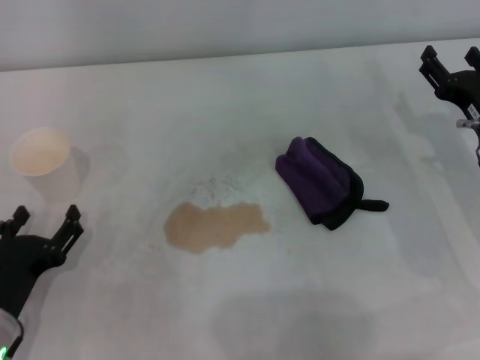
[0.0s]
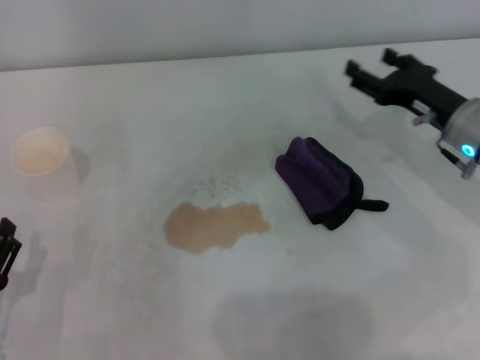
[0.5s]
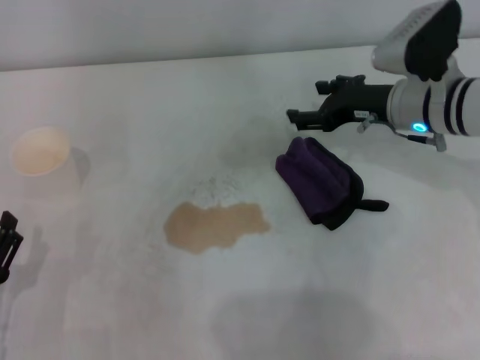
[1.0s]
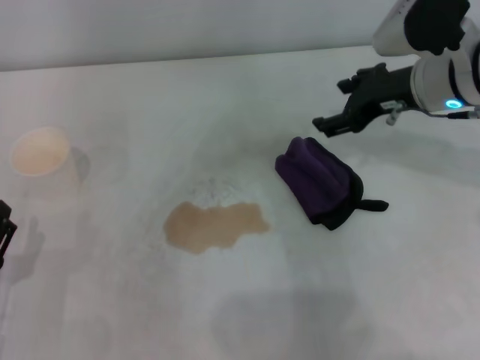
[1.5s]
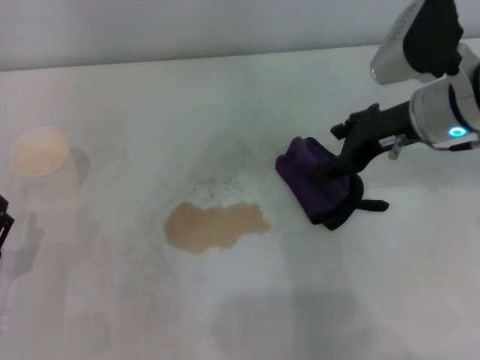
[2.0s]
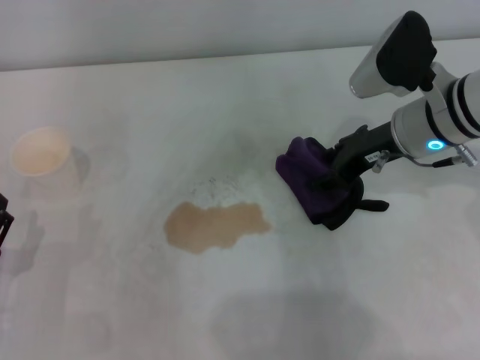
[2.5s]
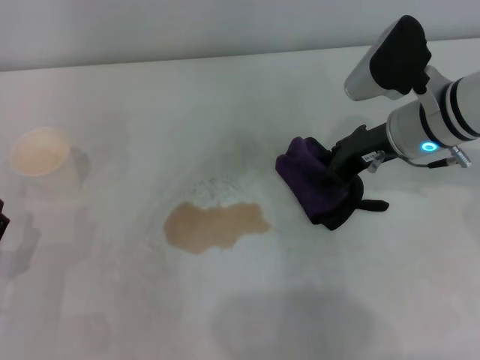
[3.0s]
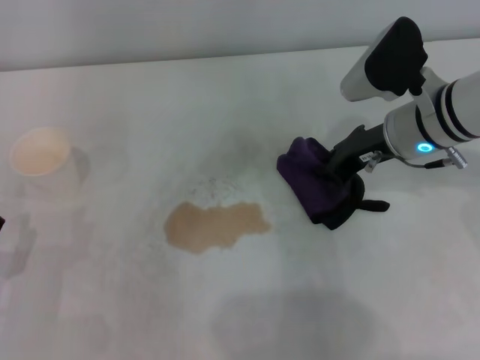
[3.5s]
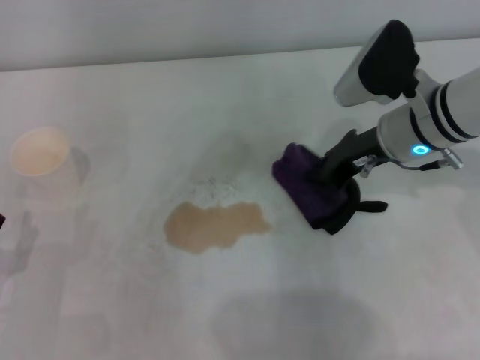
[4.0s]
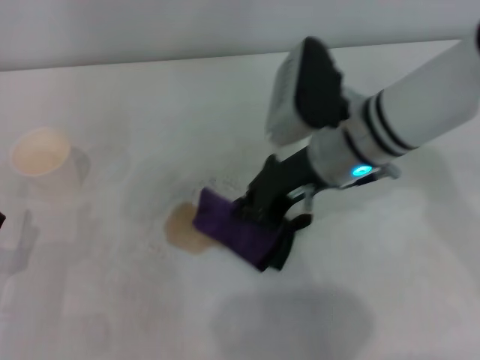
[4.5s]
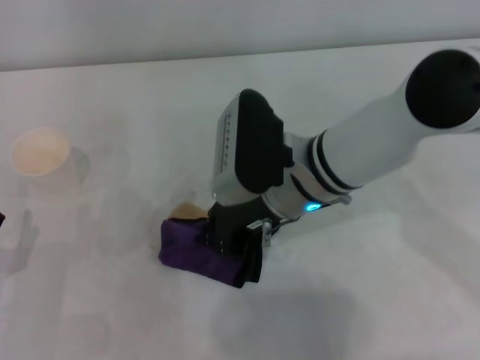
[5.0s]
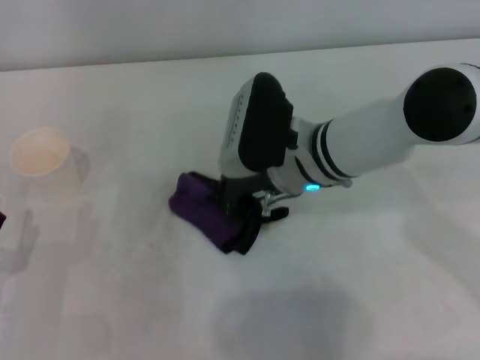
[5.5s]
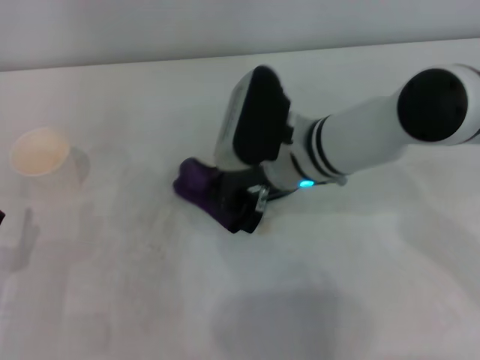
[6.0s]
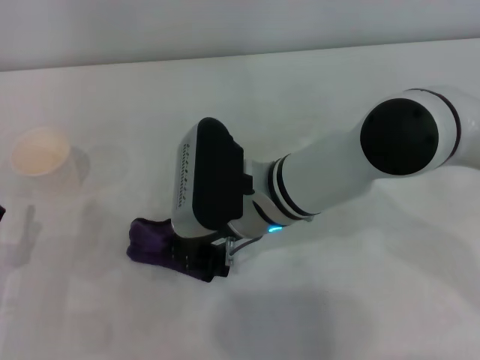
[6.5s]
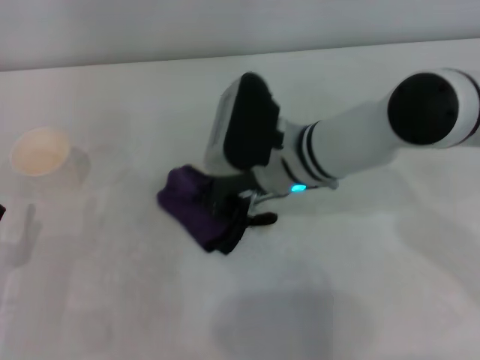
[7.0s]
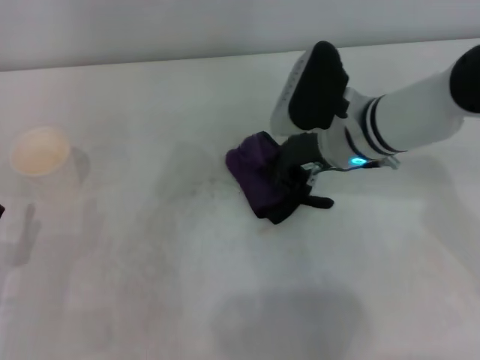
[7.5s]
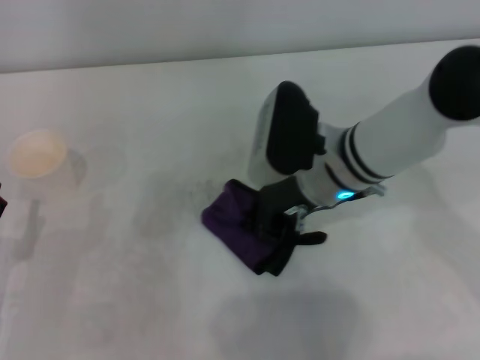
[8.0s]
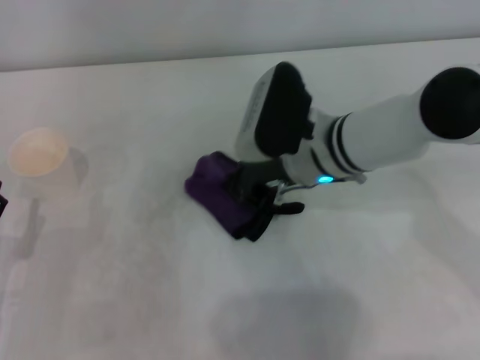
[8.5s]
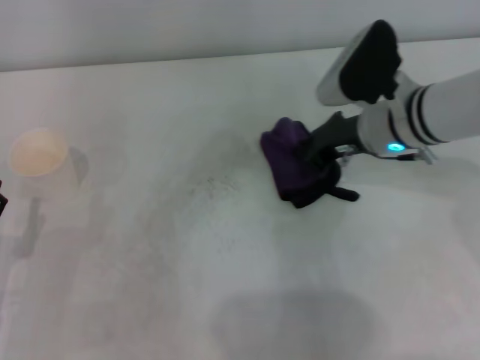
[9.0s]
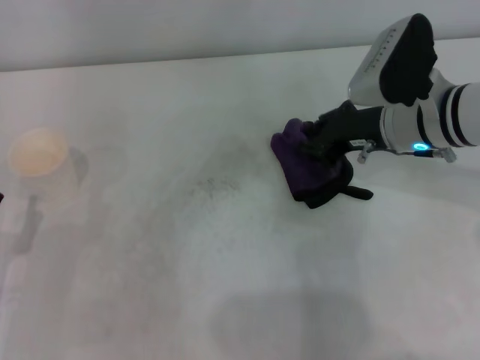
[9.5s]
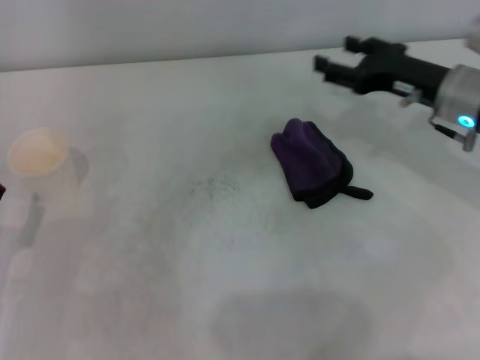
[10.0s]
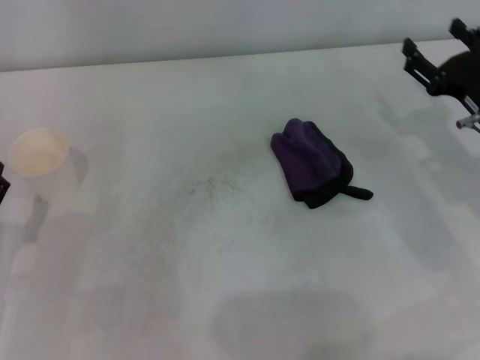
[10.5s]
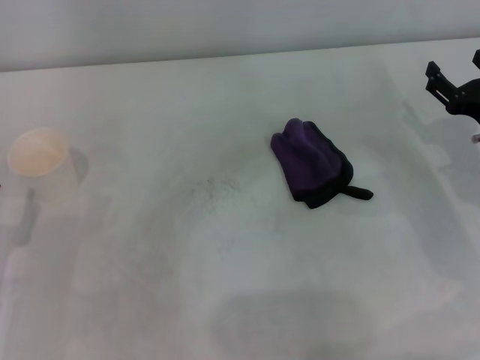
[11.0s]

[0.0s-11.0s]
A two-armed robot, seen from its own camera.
Step, 0.0s to 3.5s: Grasp the rag with the right gripper.
Step, 4.0s to 8.5s: Wipe the stains off the table with the right gripper.
0.0s to 2.0s: The right gripper is displaced upward and to the left by about 15 cm.
2.0s to 3.5s: The right gripper closes up.
3.5s to 5.5s: The right gripper goes some 10 cm to the left.
5.5s to 7.5s: The right gripper travels to the right by some 5 cm.
7.5s to 9.0s: The grippers make only small movements.
9.0s to 11.0s: The right gripper travels to the right and backward by about 15 cm, and opens.
